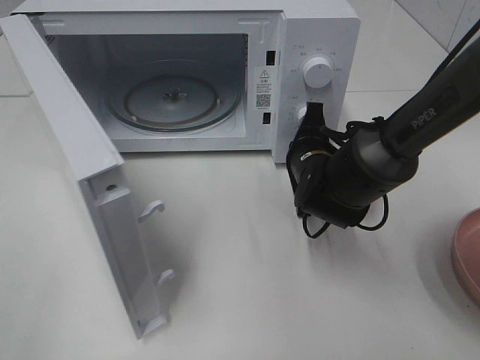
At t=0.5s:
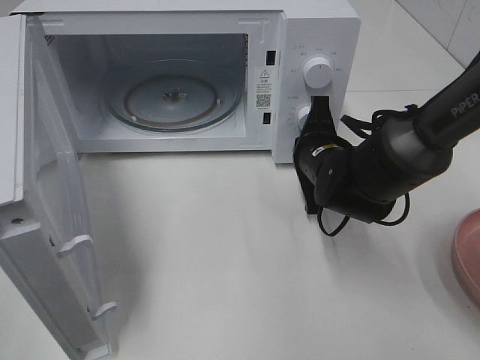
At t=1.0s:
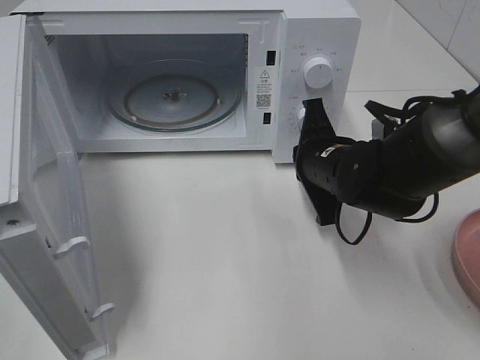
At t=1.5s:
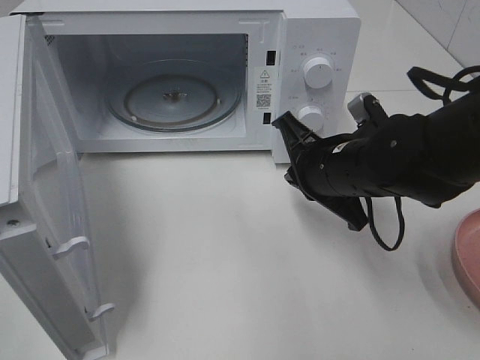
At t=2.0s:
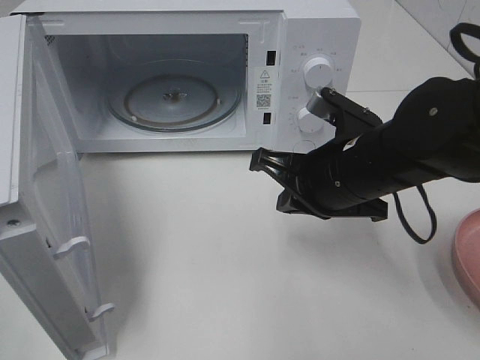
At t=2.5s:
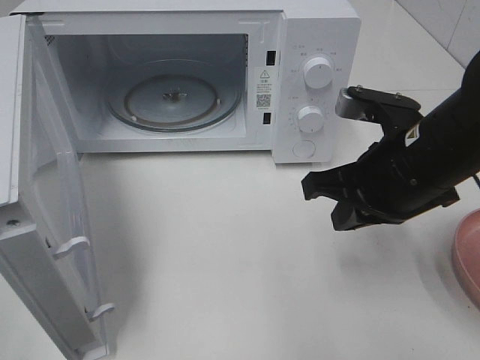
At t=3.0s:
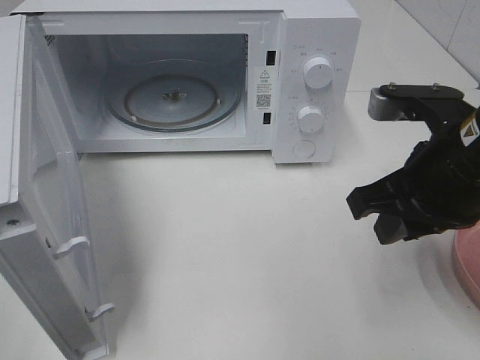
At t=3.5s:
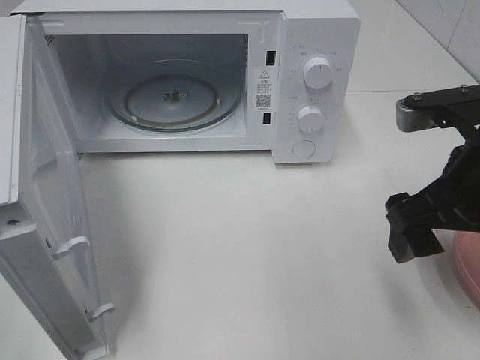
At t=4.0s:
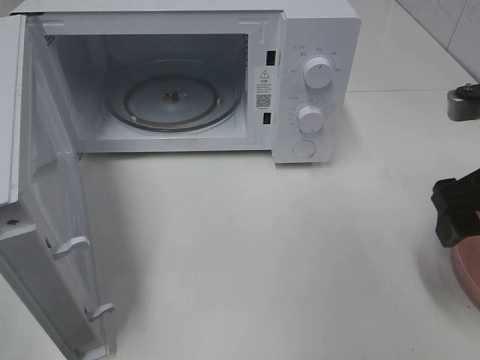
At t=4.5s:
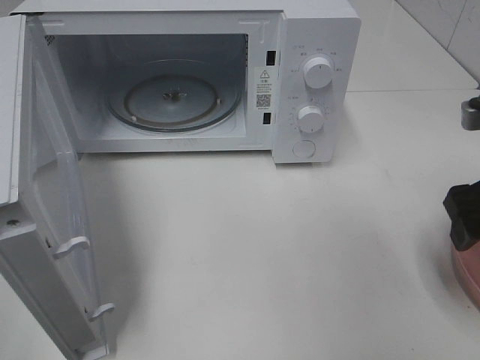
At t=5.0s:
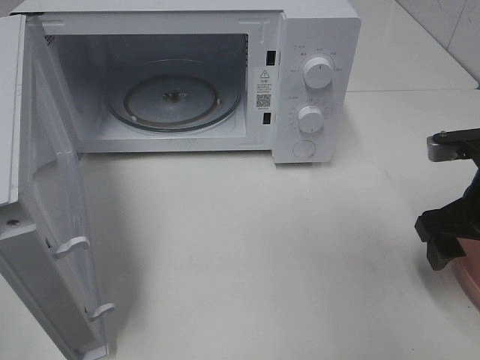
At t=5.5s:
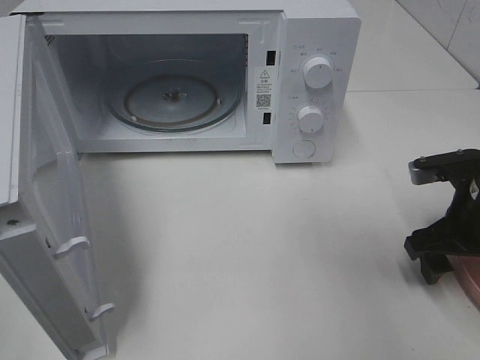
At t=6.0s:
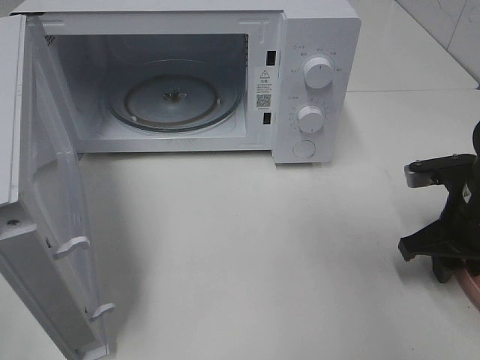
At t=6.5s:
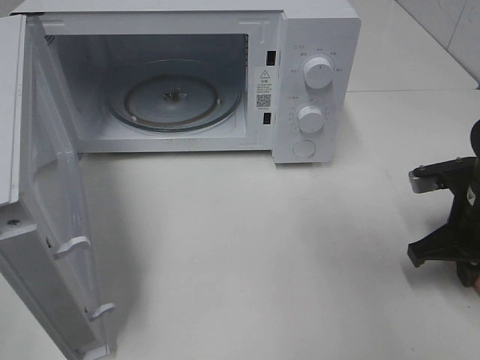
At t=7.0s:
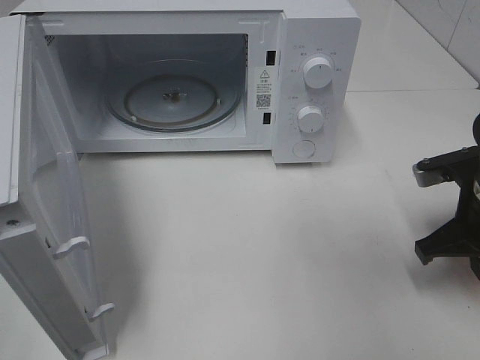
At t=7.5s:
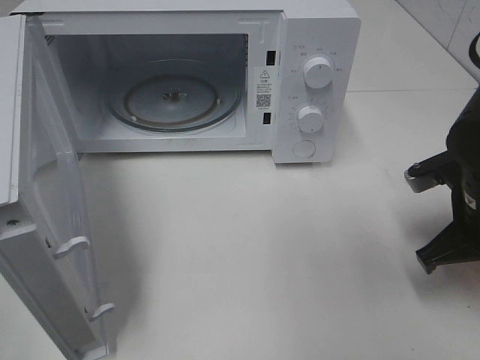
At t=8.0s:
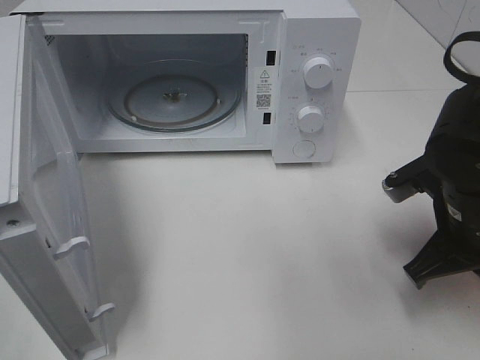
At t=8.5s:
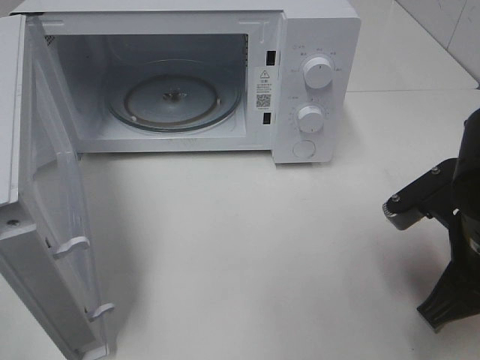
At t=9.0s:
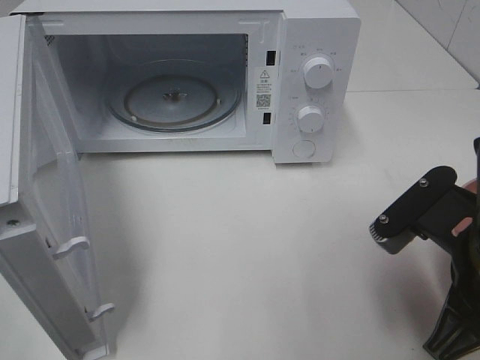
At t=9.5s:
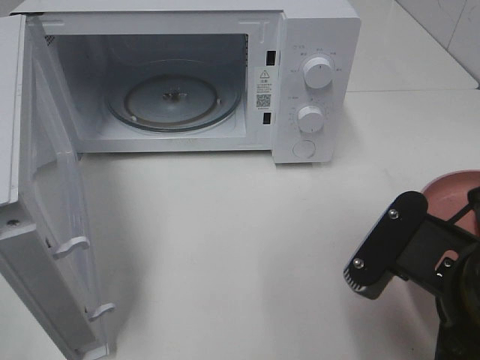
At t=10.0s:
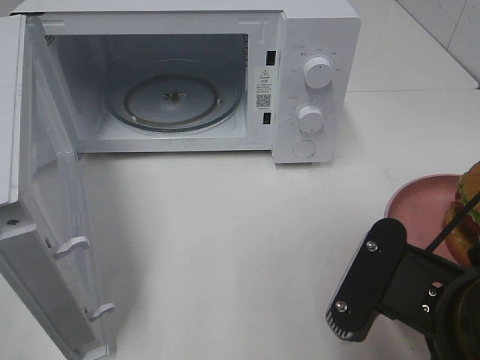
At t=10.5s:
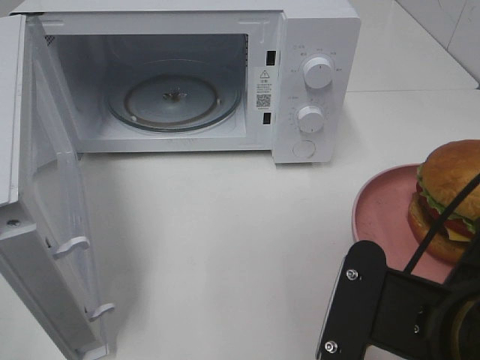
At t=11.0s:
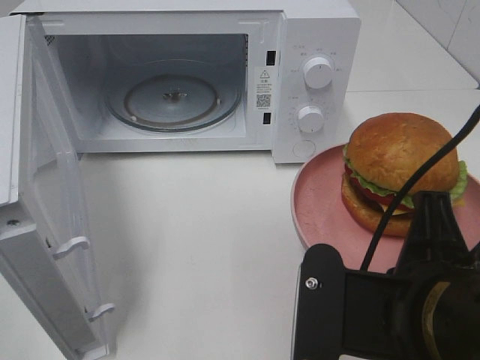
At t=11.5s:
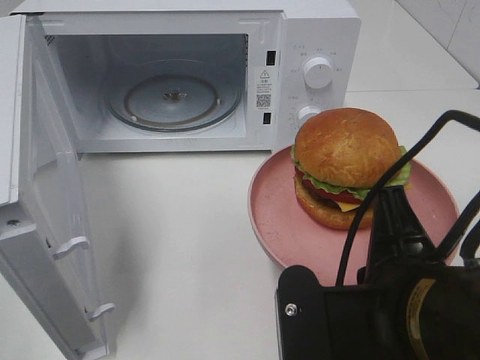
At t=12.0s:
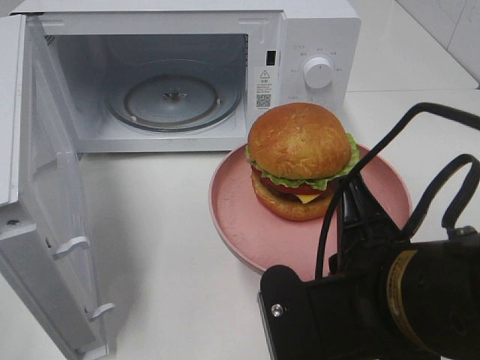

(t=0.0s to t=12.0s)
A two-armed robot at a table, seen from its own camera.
Task of the whole recording: Heat the burger.
Step, t=1.0s - t=6.5s: Right hand: grab the plate with the hamburger.
t=0.0s - t=2.0s: The right gripper moves backward and upward, roughly 10 cm.
t=2.0s - t=4.0s: The right gripper goes approximately 15 cm to the right and upward, and opens its fingers.
t=4.0s - t=6.0s: The right gripper heads downward, covering approximately 10 cm, and closes up.
t=6.0s - t=8.0s: The right gripper changes place by some 5 cm, and closes.
t=8.0s - t=10.0s: The right gripper travels backward and to the left by roughly 15 cm.

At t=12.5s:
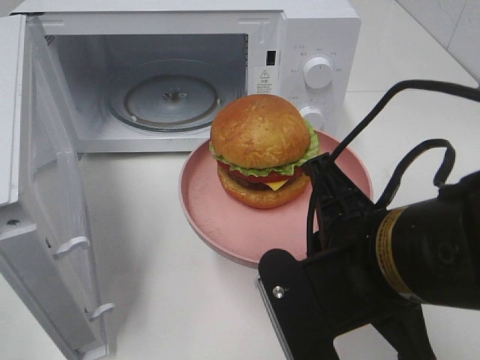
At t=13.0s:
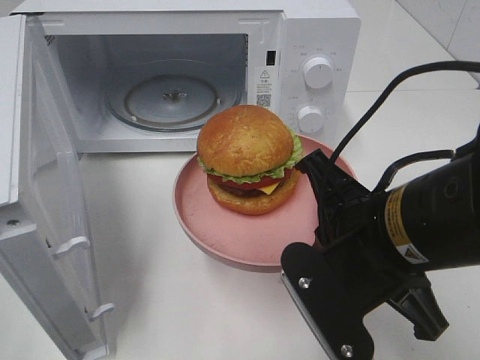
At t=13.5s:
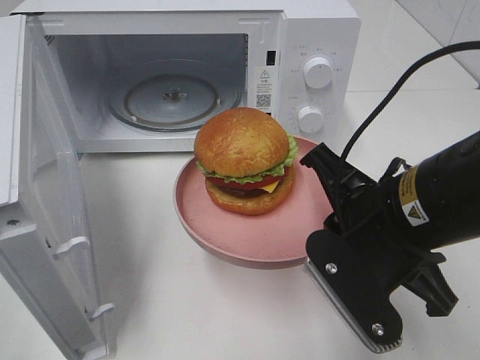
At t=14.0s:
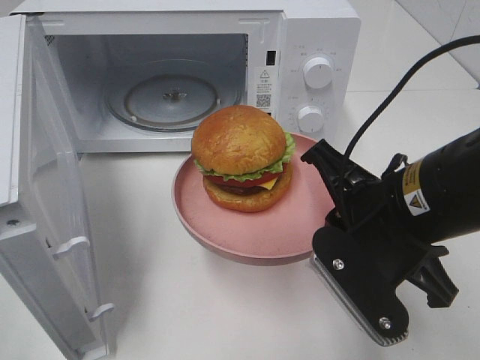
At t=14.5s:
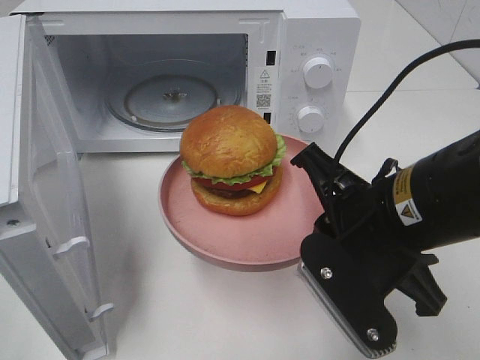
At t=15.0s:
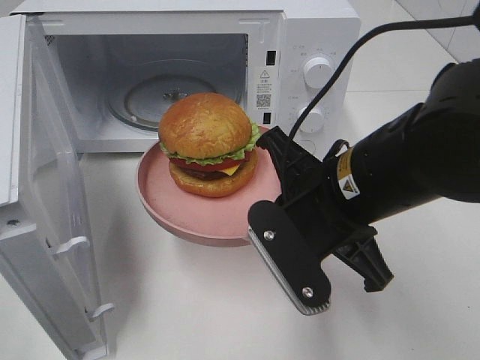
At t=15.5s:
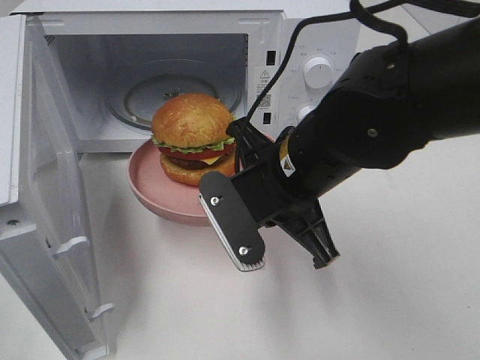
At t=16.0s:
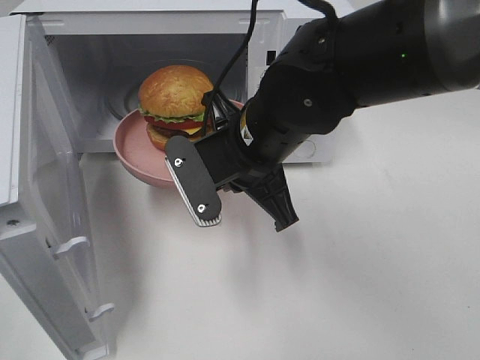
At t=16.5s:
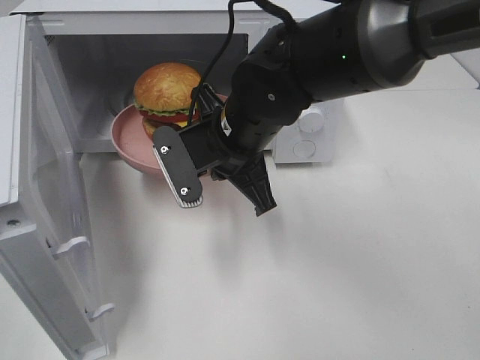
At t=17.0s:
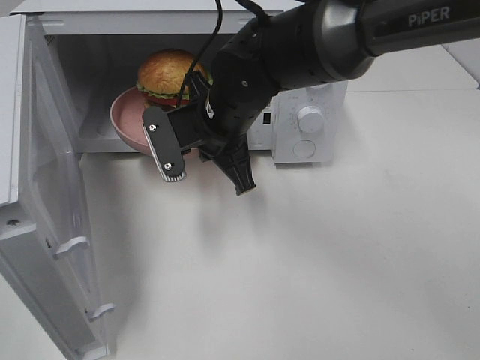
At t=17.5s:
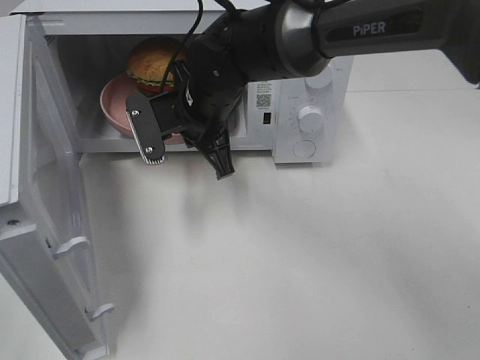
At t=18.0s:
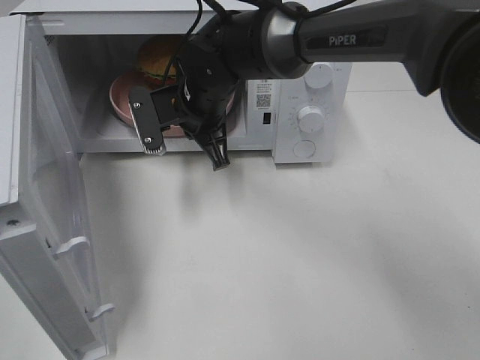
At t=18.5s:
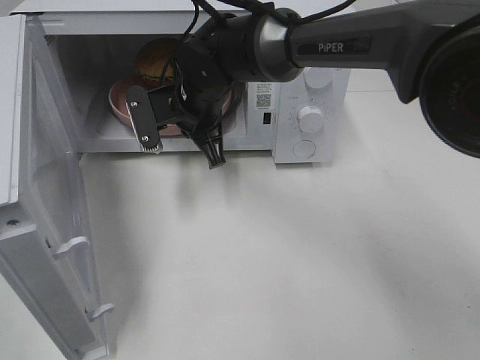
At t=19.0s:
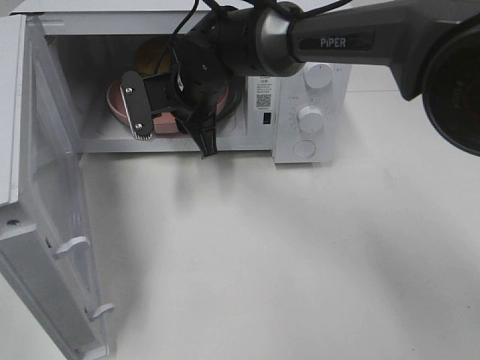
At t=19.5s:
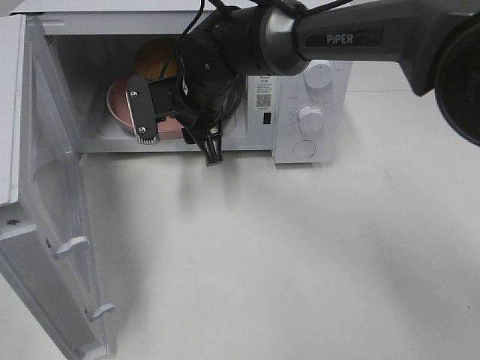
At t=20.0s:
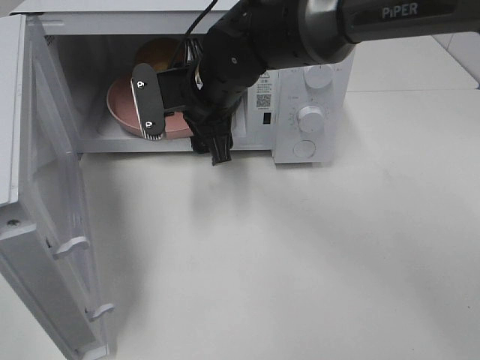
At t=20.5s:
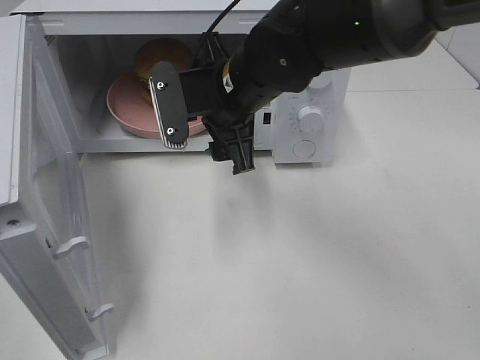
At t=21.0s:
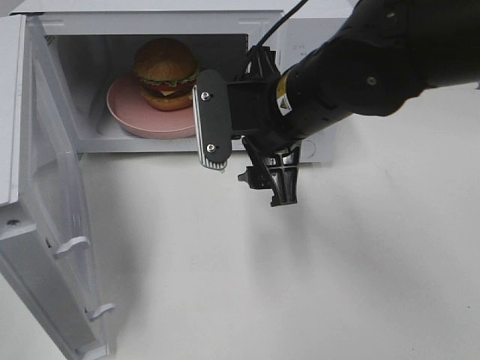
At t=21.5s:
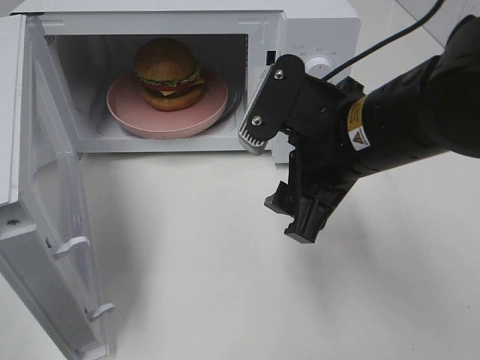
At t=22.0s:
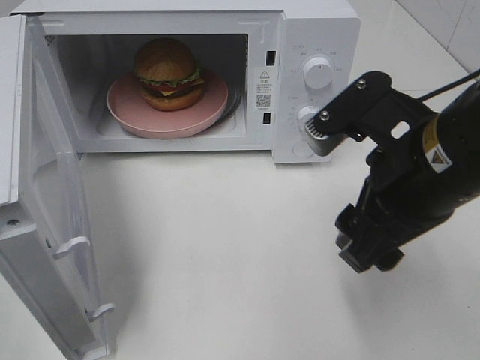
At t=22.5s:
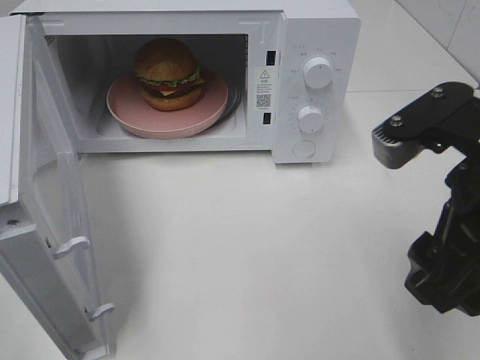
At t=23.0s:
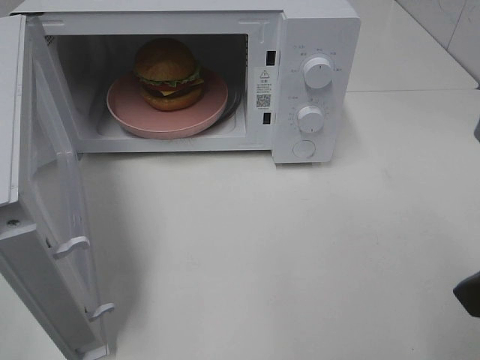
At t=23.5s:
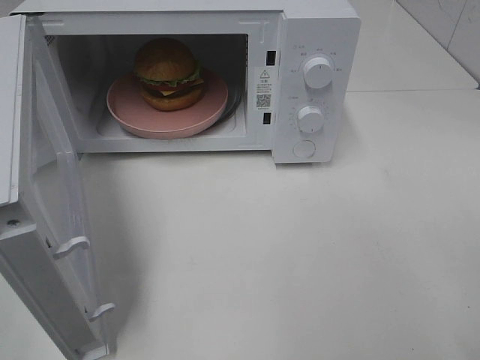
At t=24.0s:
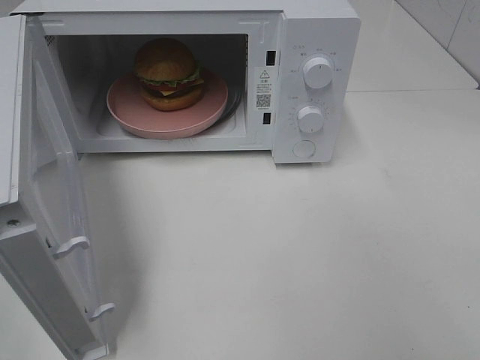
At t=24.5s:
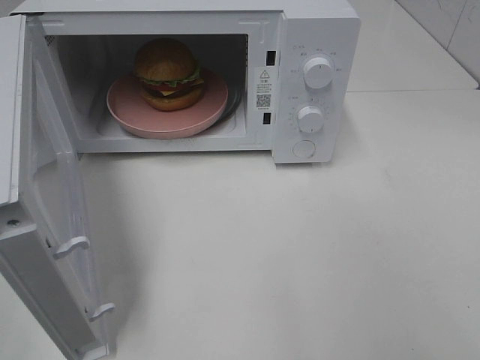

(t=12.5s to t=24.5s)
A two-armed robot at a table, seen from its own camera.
Task of the whole recording: Heat the burger.
Step, t=12.5s - t=19.0s: Right hand: place the plate in the microwave.
t=12.5s - t=14.5s: The right gripper shifts by roughly 5 cm.
t=14.5s - t=16.5s: The right gripper moves forward and to the left, some 15 cm.
t=16.5s - t=18.5s: The right gripper moves forward, approximately 10 cm.
t=18.5s - t=20.5s: The right gripper heads backward and to the right, covering roughly 10 cm, and opens.
t=20.5s - t=22.5s: The right gripper heads backward and to the right, covering approximately 25 cm.
t=22.5s - t=24.5s: The right gripper heads backward and to the right, covering approximately 20 cm.

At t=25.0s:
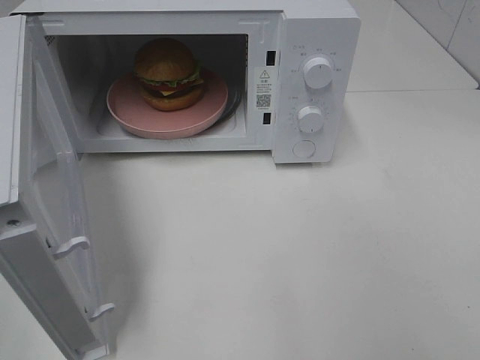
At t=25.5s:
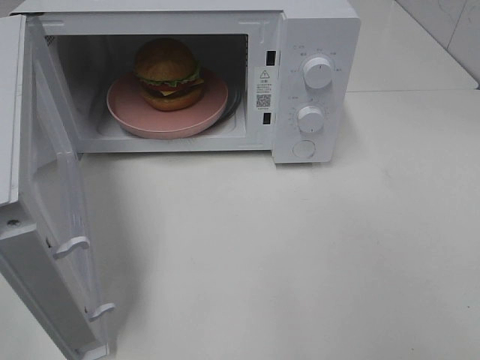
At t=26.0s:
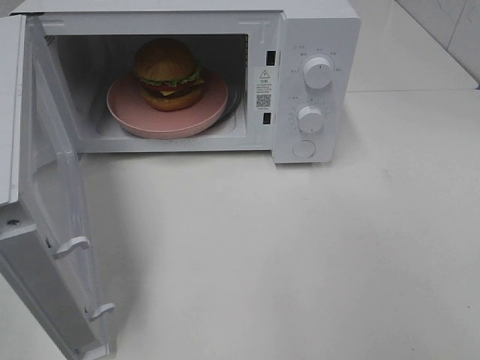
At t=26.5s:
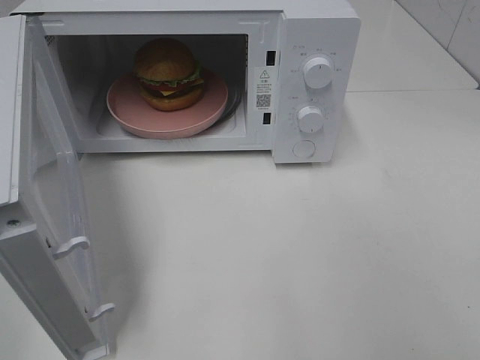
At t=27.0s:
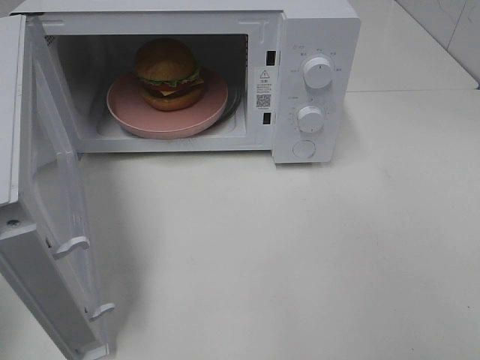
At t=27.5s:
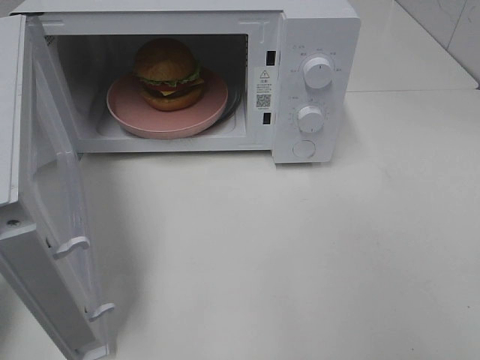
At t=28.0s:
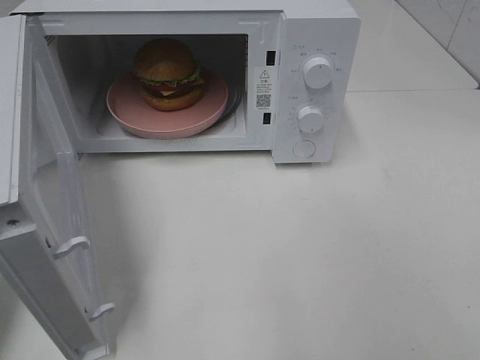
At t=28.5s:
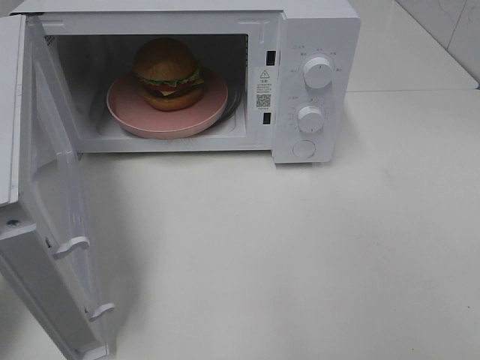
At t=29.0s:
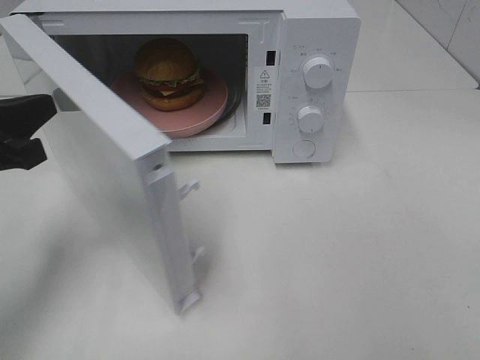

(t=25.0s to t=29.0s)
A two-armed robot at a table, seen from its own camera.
Task of the whole recording: Heat the burger.
t=27.0s - t=29.0s: The left gripper goes roughly 20 cm forward, downward and to the right.
